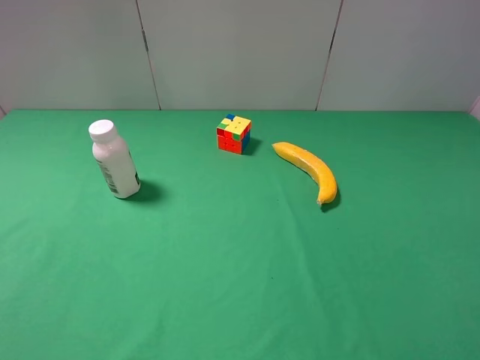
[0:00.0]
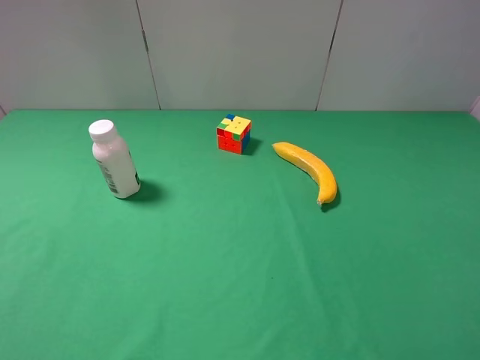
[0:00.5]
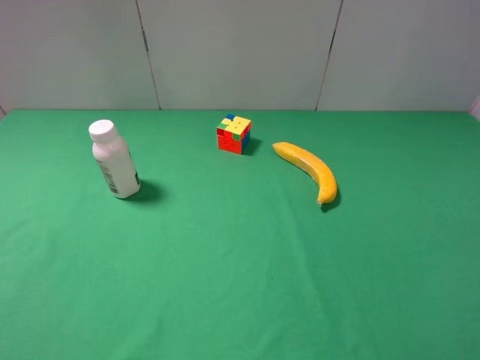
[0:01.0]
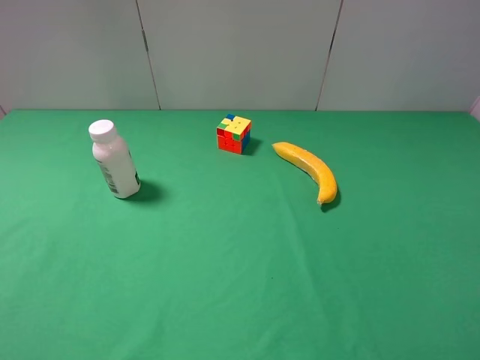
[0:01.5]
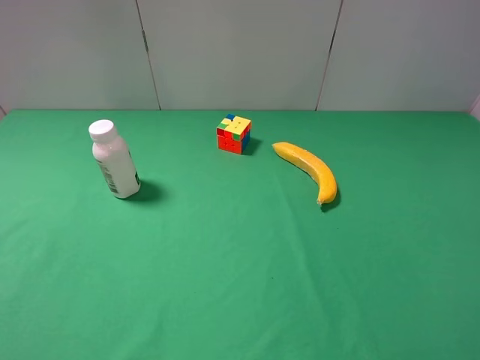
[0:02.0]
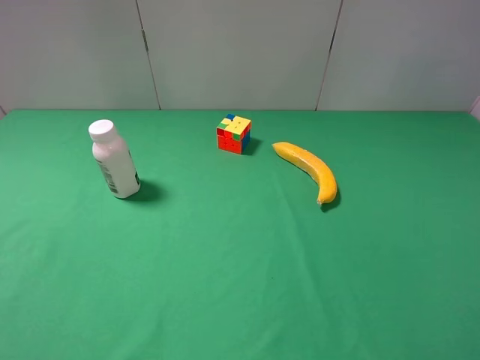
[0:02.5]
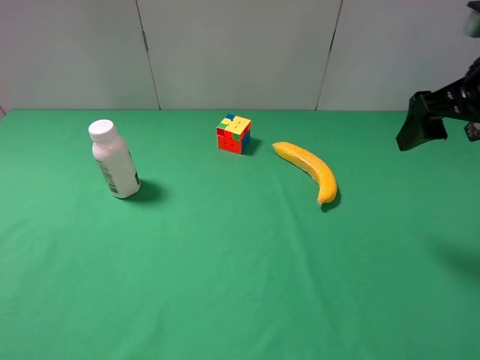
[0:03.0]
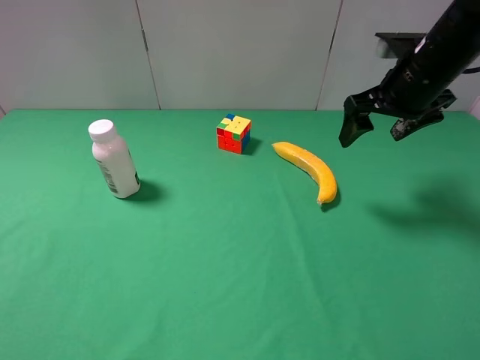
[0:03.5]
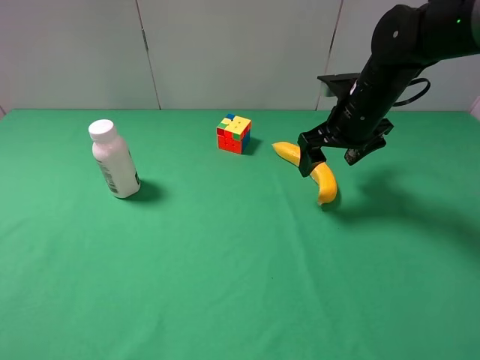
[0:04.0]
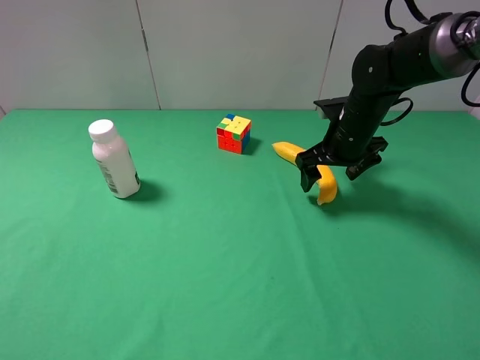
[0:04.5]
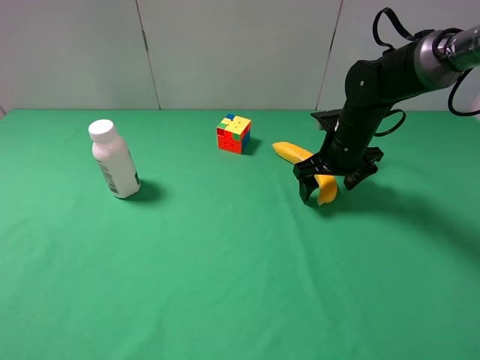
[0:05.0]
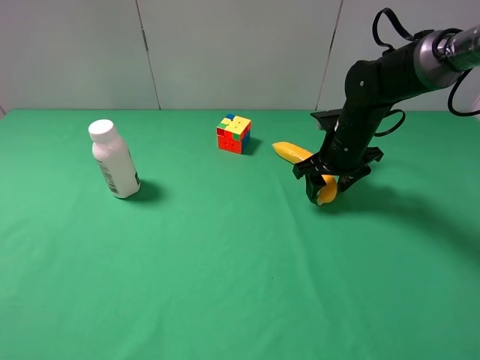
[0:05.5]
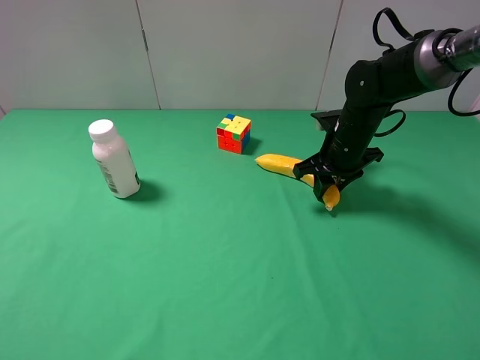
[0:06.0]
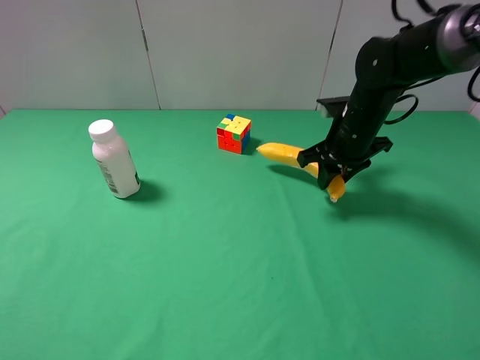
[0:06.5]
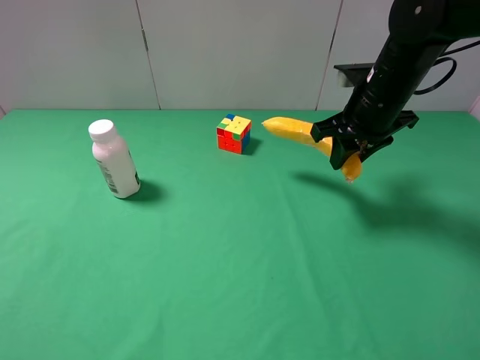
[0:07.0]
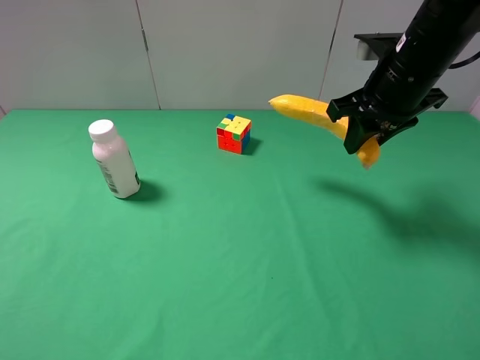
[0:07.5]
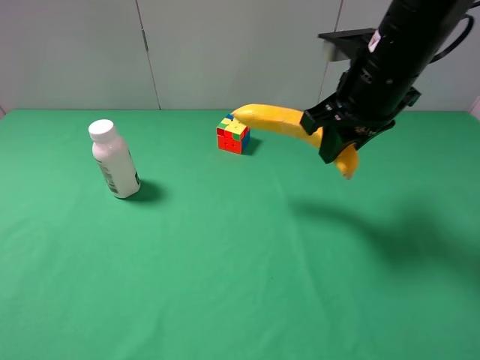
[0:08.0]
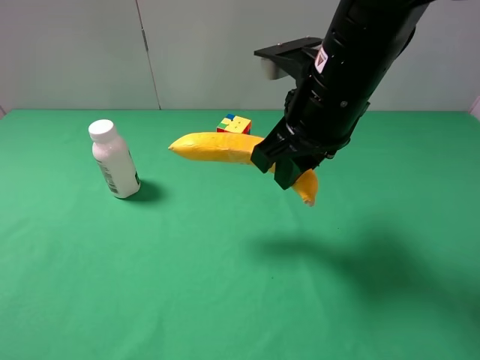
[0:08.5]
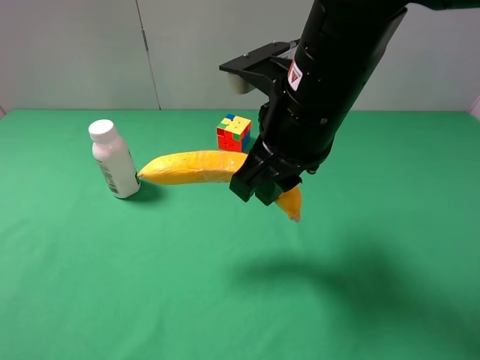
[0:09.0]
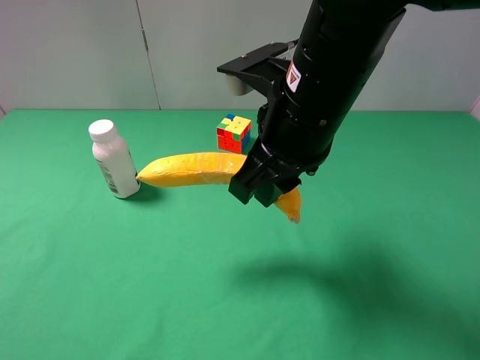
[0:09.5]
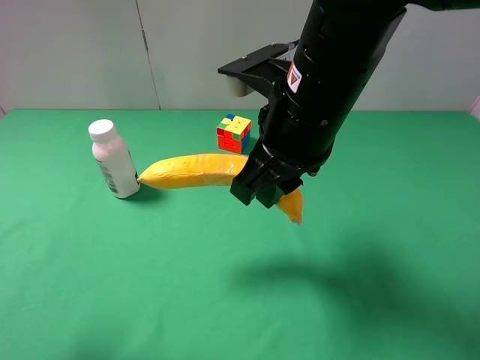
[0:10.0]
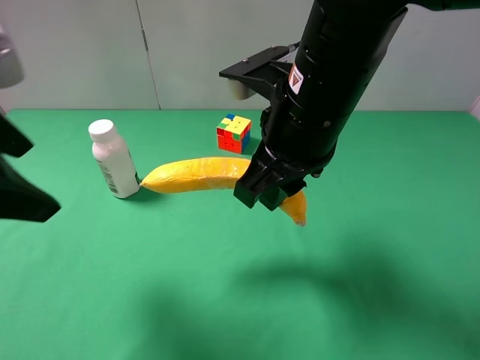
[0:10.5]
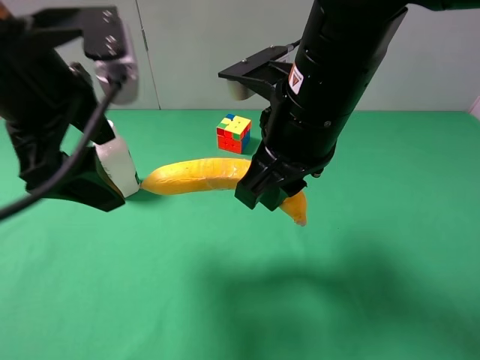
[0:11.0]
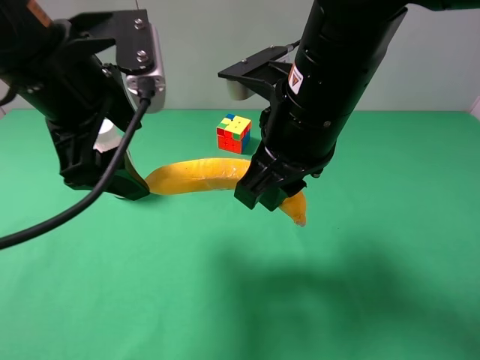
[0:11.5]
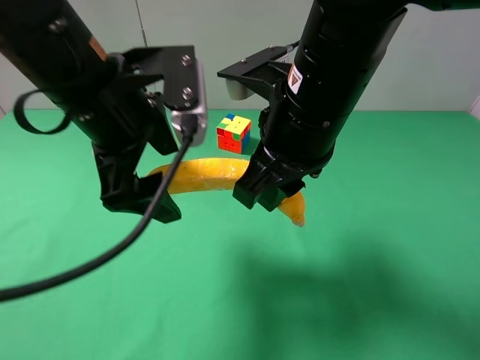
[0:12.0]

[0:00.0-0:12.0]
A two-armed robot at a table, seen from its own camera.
Task of the whole recording: use the right gripper to pick up the item and transfer it from the right gripper to the left gripper.
0:02.0 to 0:04.0: The right gripper shifts roughly 35 cm forward.
0:04.0 to 0:06.0: The right gripper travels downward by approximately 5 cm, and closes its fingers.
0:06.0 to 0:08.0: The right gripper goes about 20 cm upward and backward.
0:08.0 to 0:10.0: The left gripper shifts about 10 cm forward; the right gripper goes roughly 10 cm to the left and backward.
0:10.0 to 0:12.0: The left gripper goes about 20 cm to the right and forward.

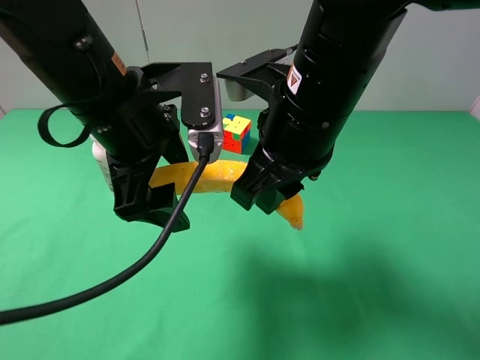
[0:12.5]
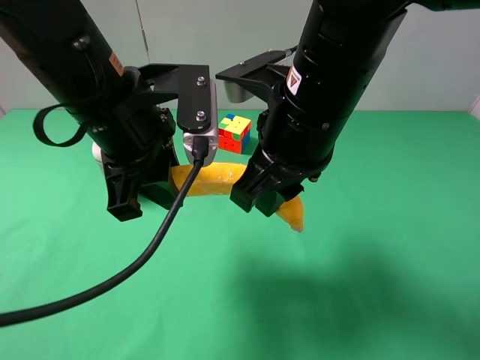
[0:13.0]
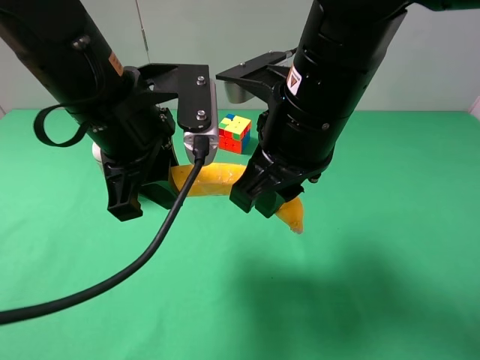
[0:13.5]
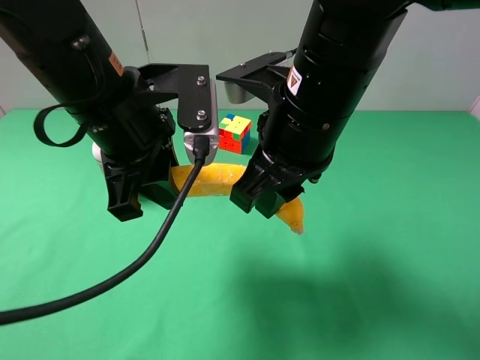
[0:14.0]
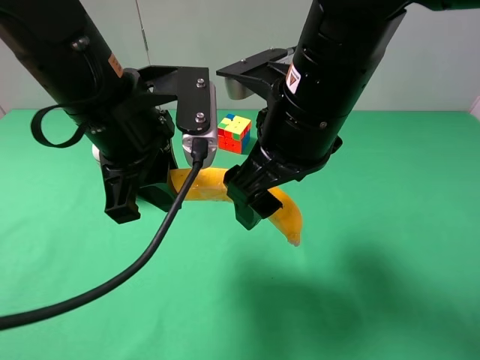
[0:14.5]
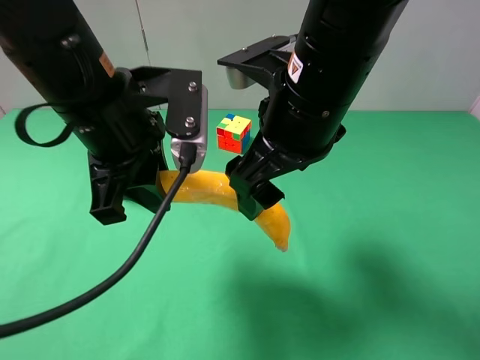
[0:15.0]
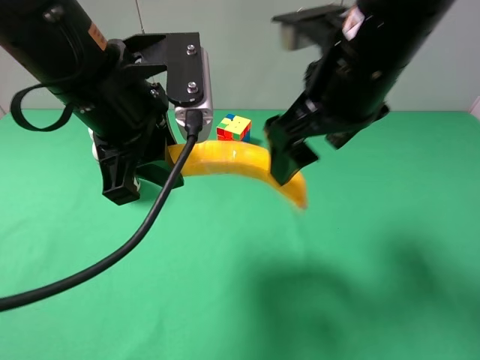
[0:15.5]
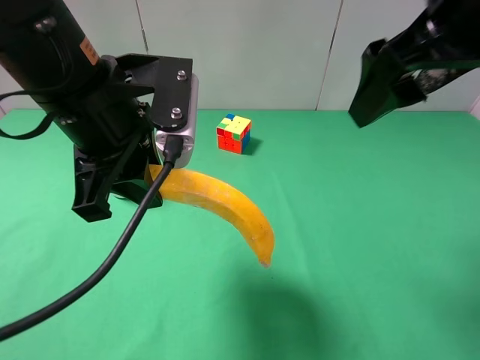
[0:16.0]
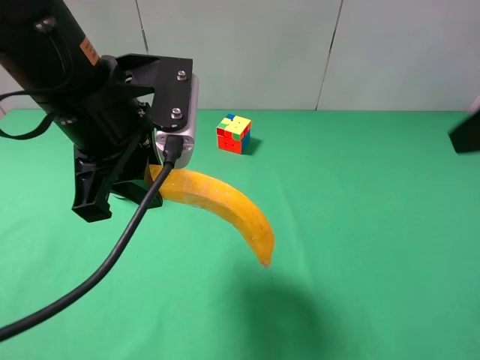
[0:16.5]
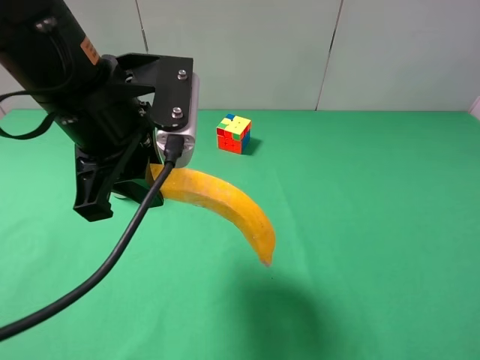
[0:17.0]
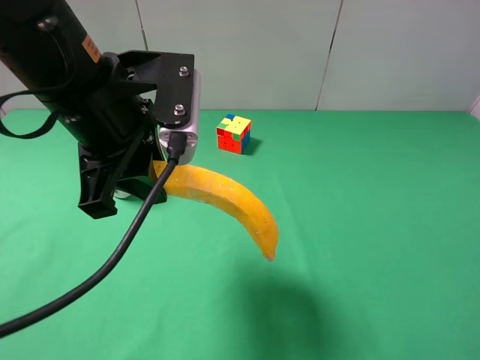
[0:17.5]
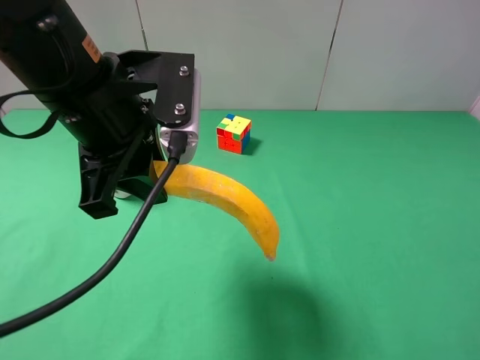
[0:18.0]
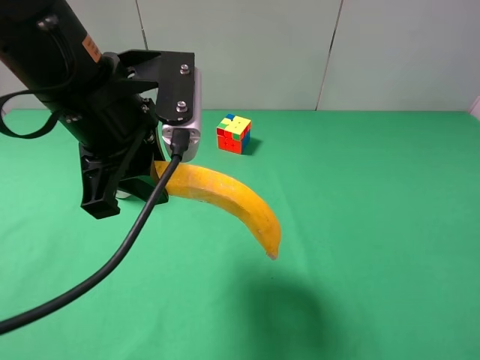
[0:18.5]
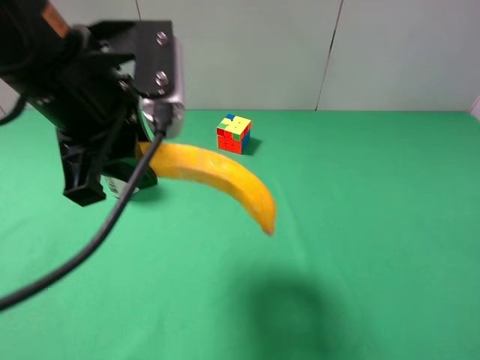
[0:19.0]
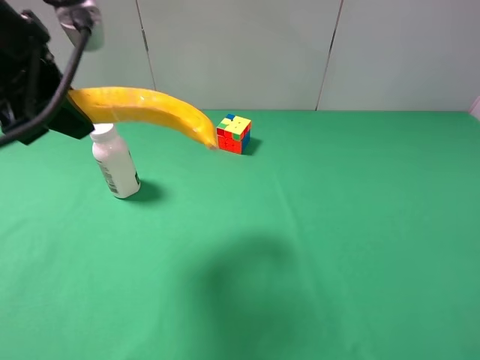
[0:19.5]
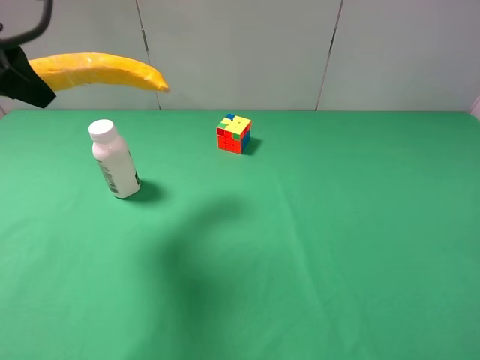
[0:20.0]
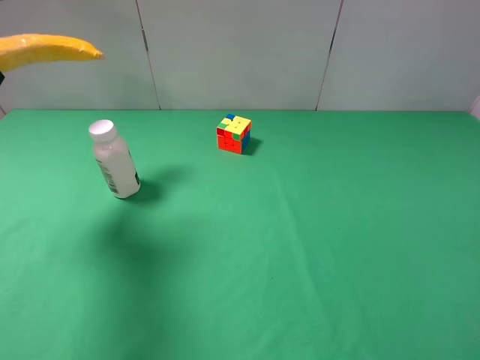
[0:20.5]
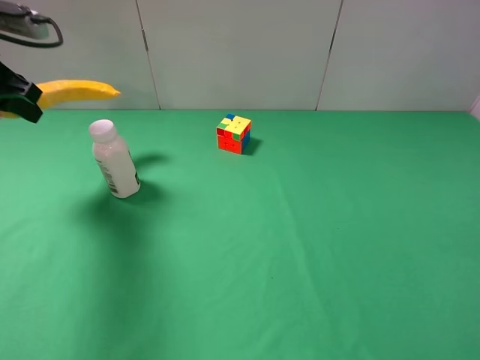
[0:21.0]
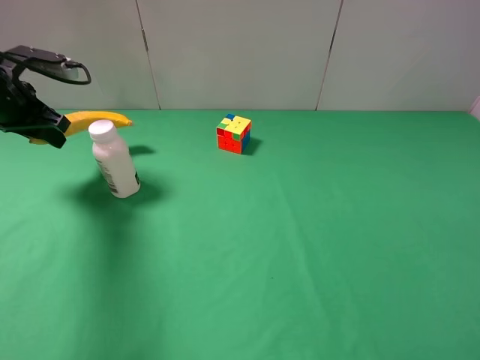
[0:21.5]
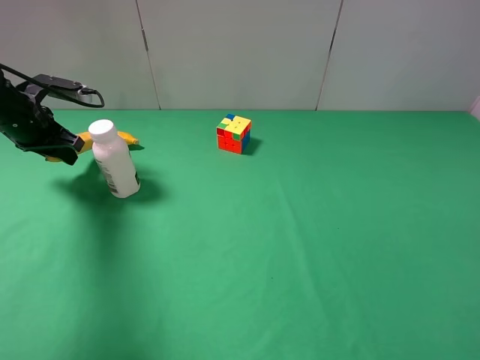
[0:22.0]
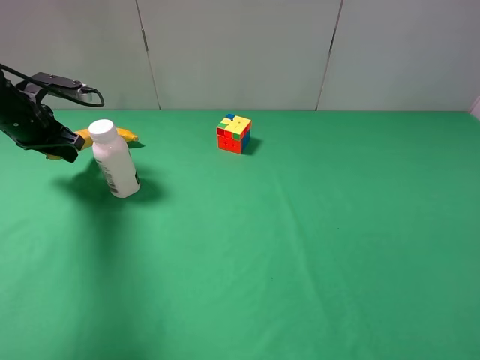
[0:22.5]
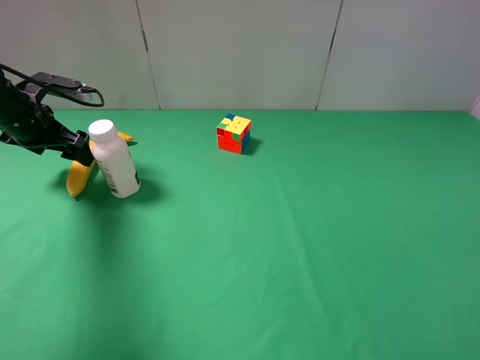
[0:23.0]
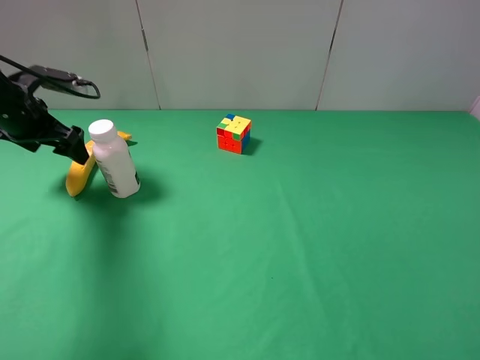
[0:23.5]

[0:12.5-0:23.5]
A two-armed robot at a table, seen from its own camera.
Task of the whole recording: use the right gripper to pick up the item and transfer it from the right gripper to the left gripper.
Step, 0:12.5 to 0:14.5: Pass the banana to the left gripper.
Step, 0:15.0 to 0:22.5: The left gripper places banana on the left side of the table.
0:12.5 to 0:14.5: The left gripper closes its fingers; the right gripper opens its fingers.
0:14.5 to 0:16.0: The right gripper is displaced to the right and upward by some 15 cm.
0:16.0 to 0:18.0: The right gripper travels backward, to the right and downward by some 25 cm.
0:18.0 to 0:20.0: The left gripper is displaced to the left and upward by some 15 cm.
0:20.0 to 0:21.5: The left gripper shifts approximately 20 cm downward, forward and to the left.
0:21.5 to 0:23.5: The left gripper opens.

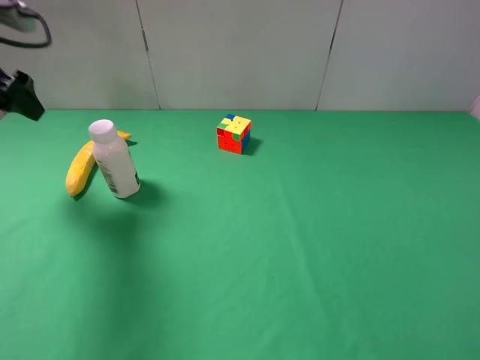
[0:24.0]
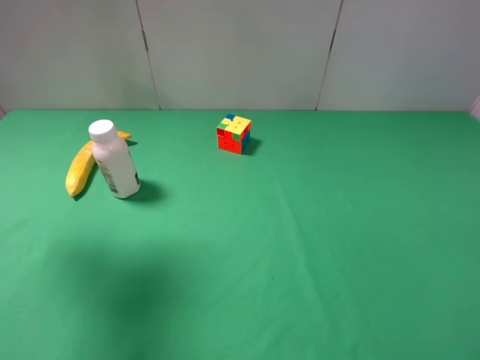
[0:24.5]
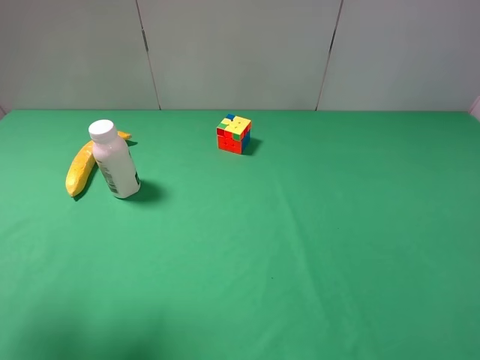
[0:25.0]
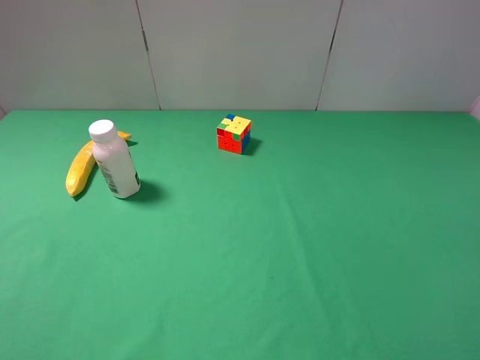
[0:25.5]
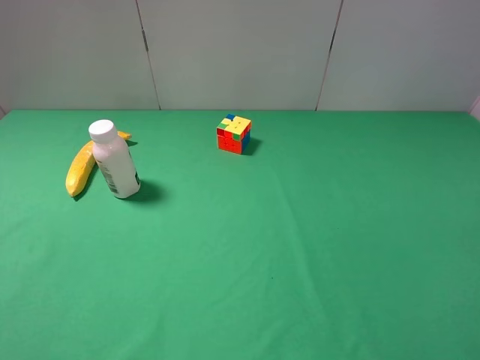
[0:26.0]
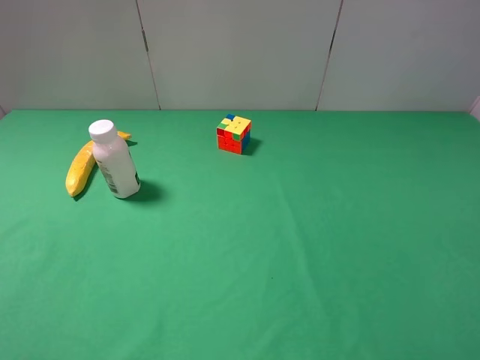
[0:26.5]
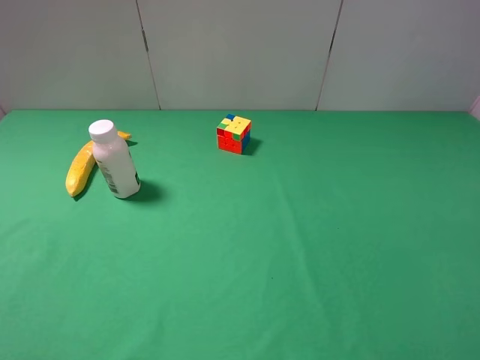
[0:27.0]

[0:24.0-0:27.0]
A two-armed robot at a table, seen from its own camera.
Task of the whole recording: use the right gripper to pick up the item and transfer it from the right gripper to the left gripper.
0:24.0 to 0:25.5: The left gripper goes some 30 cm backward.
